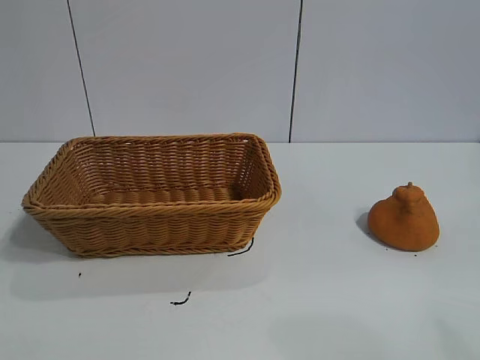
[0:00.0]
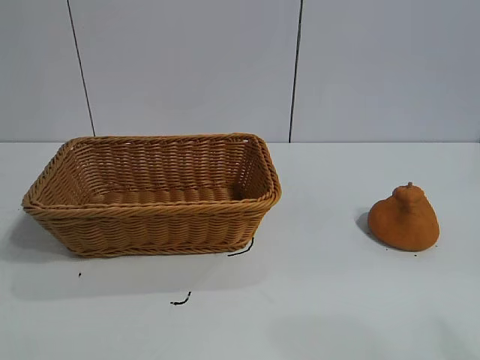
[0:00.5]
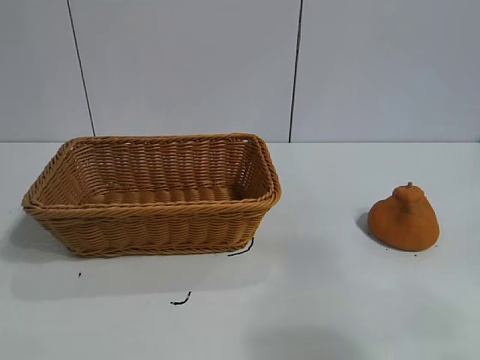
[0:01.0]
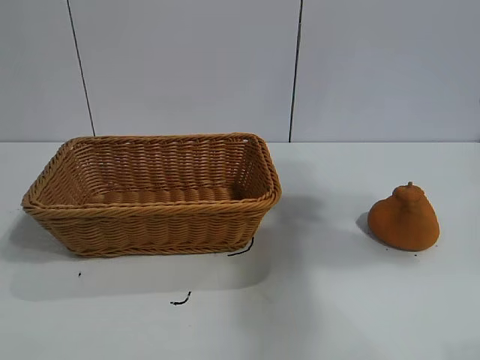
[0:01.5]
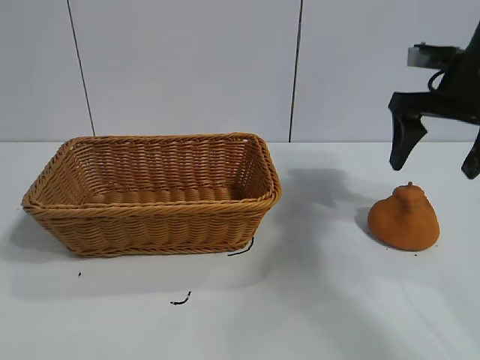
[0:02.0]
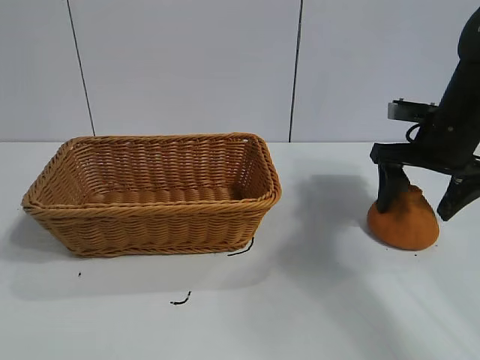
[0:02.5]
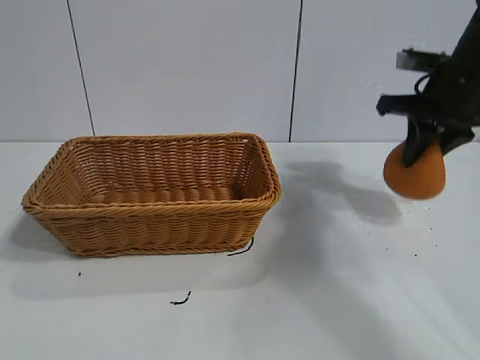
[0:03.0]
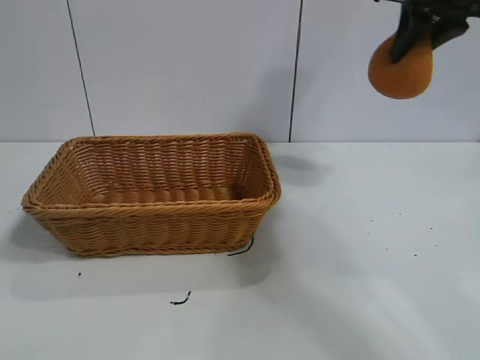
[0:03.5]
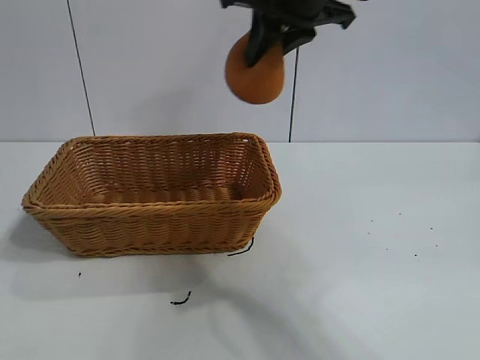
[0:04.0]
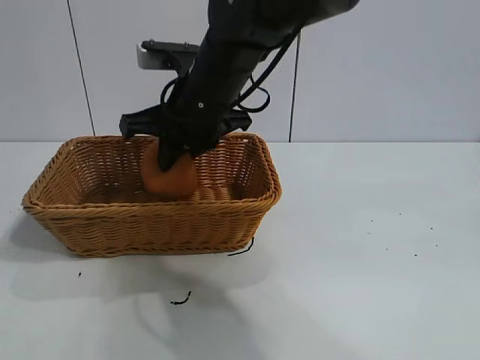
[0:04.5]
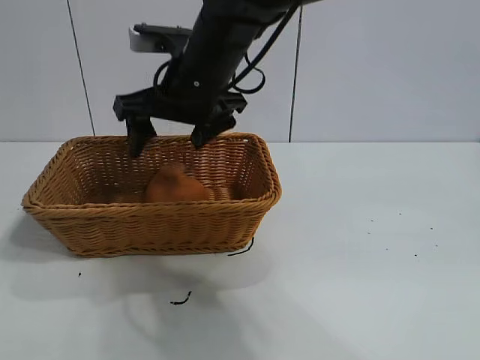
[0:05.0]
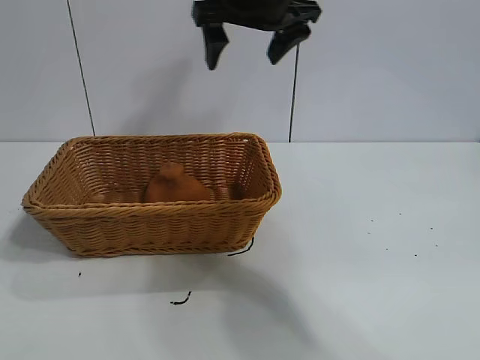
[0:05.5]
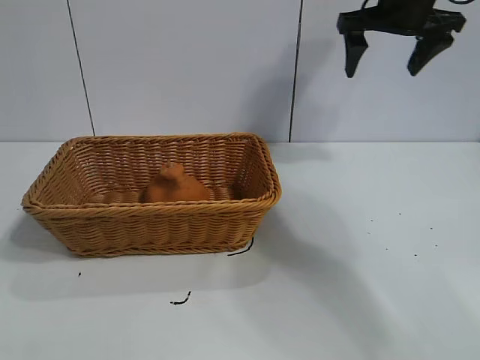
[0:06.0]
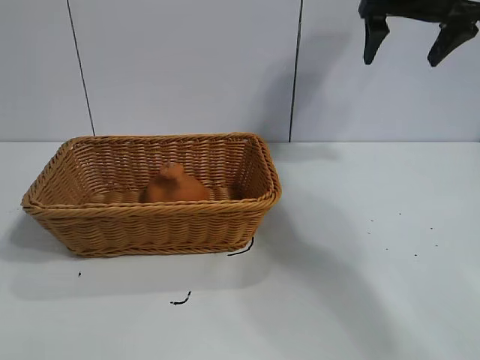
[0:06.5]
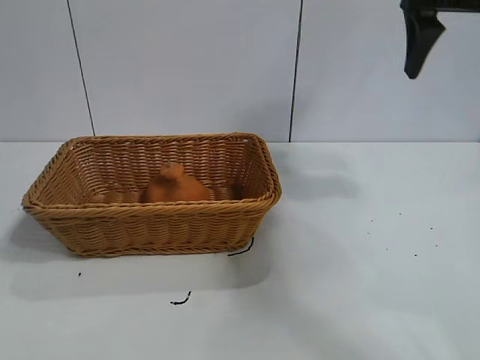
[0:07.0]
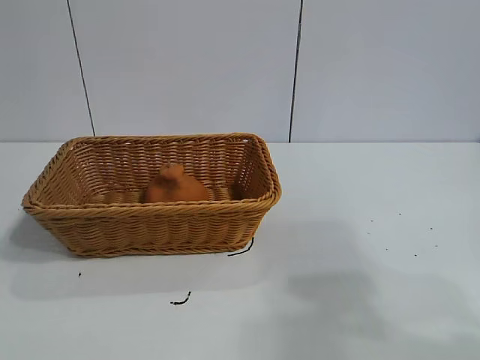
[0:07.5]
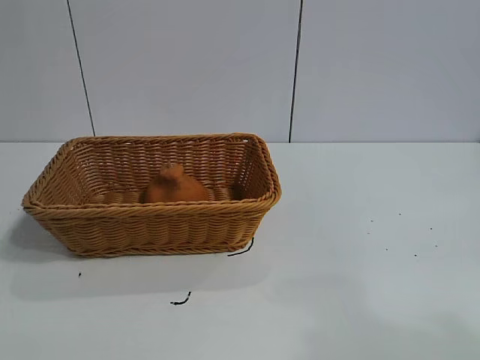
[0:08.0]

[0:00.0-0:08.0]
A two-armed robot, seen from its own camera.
Task of the whole recording: pick up the orange and put it into the basket.
Step, 0:01.0 to 0:02.5: Grasp the orange with right gripper.
Step, 0:03.0 to 0:04.5: Place the orange in the basket with right gripper.

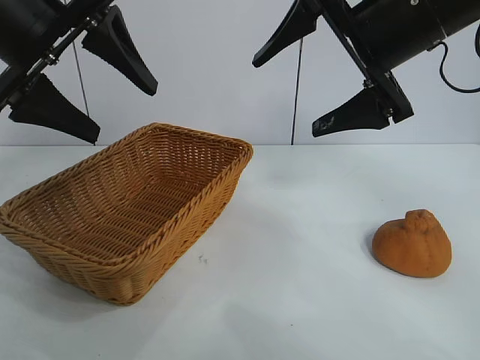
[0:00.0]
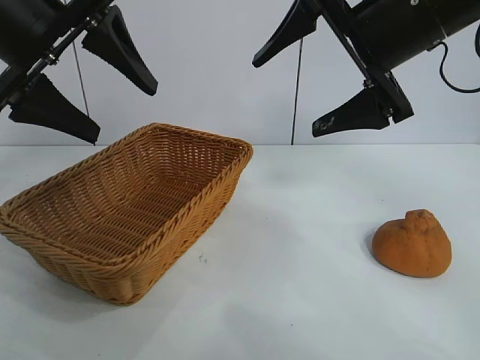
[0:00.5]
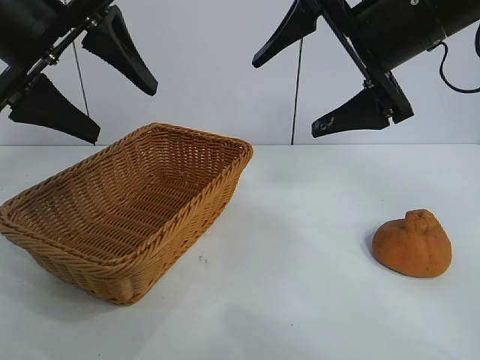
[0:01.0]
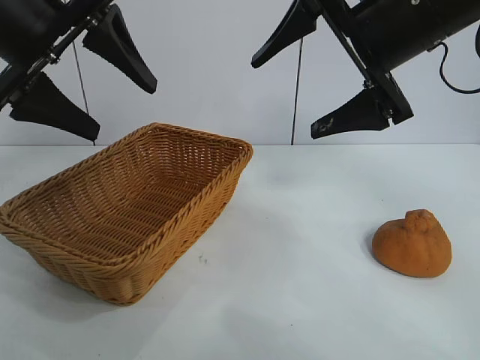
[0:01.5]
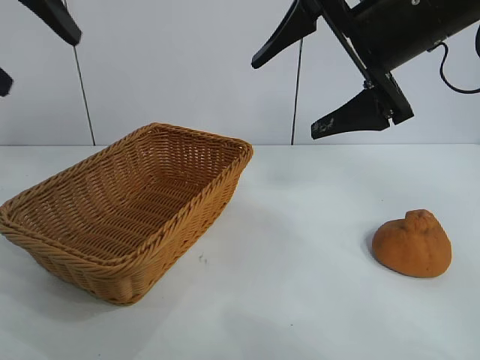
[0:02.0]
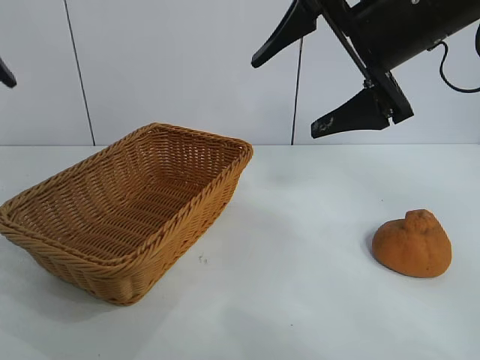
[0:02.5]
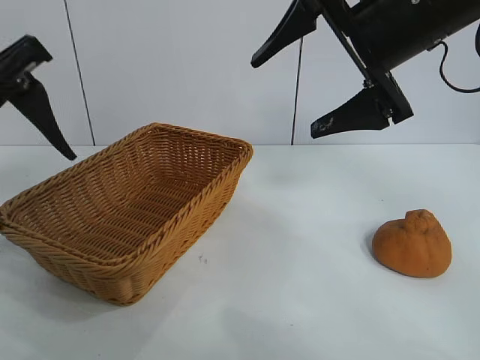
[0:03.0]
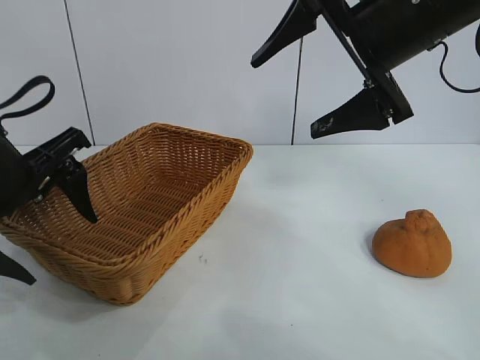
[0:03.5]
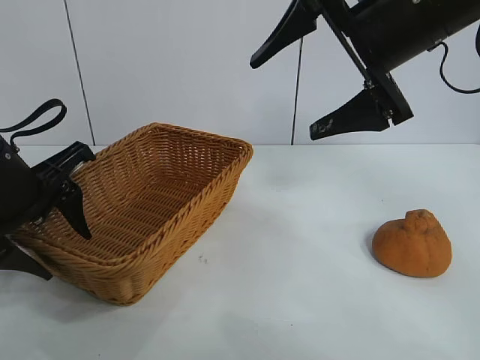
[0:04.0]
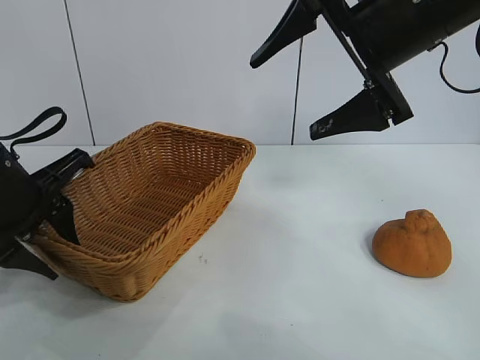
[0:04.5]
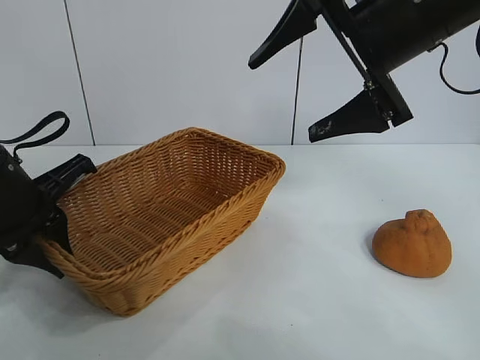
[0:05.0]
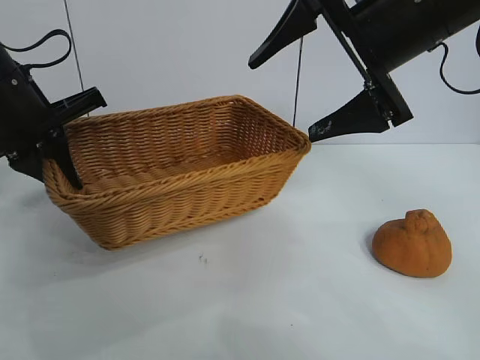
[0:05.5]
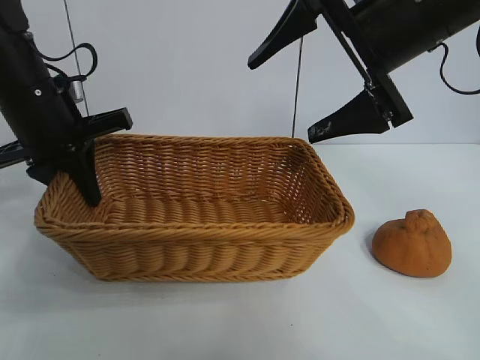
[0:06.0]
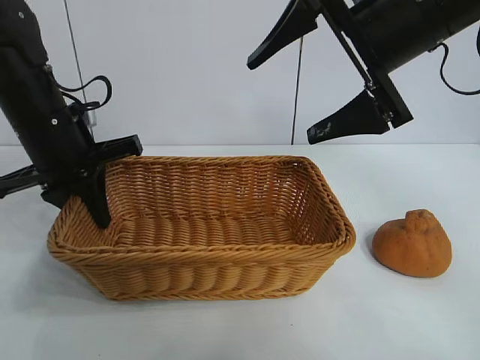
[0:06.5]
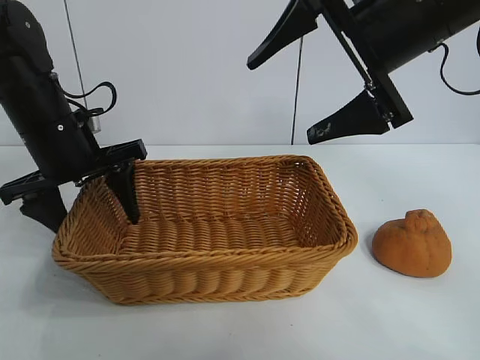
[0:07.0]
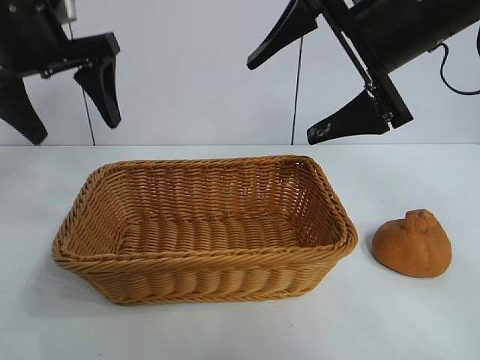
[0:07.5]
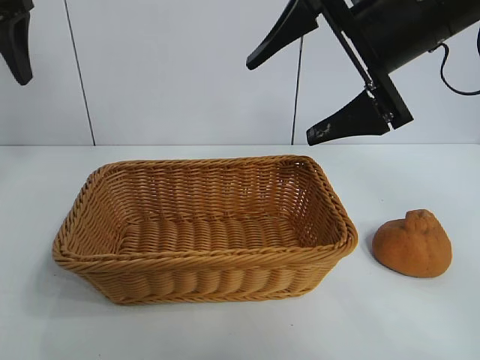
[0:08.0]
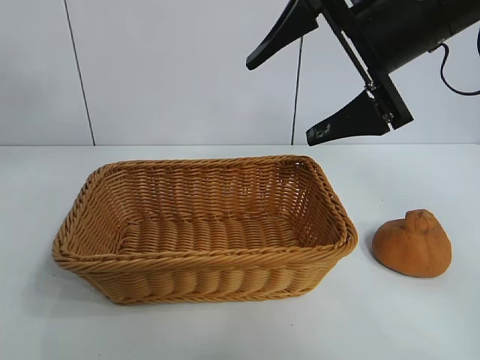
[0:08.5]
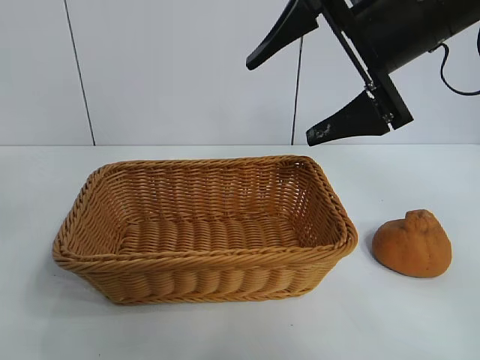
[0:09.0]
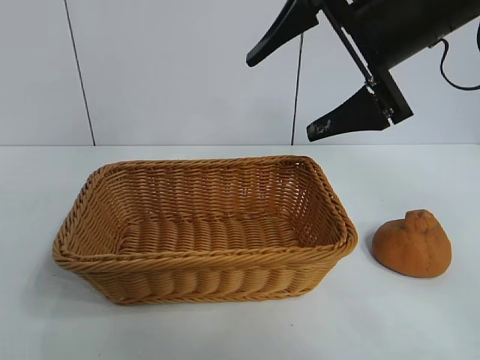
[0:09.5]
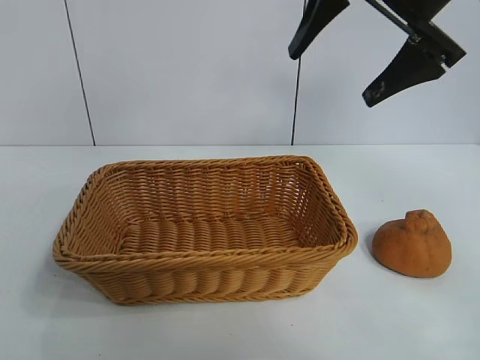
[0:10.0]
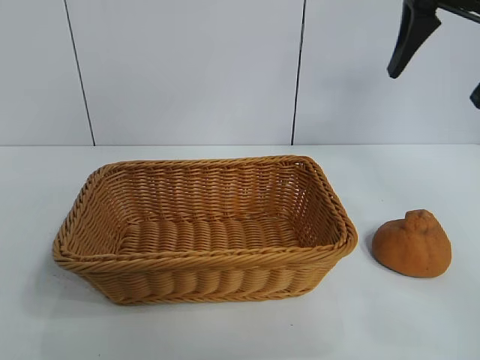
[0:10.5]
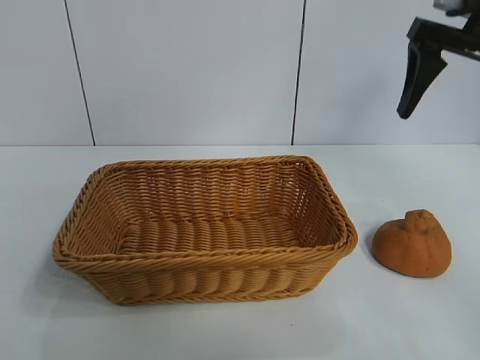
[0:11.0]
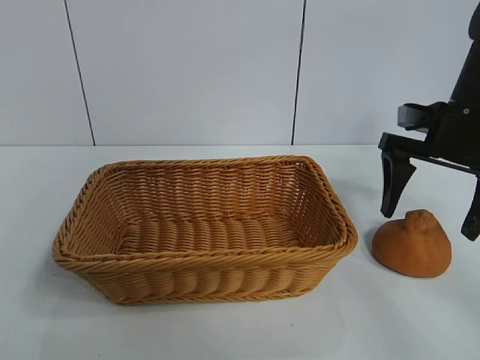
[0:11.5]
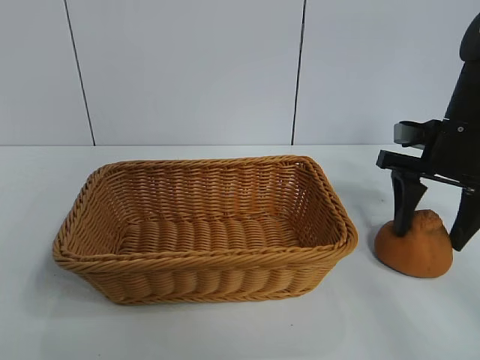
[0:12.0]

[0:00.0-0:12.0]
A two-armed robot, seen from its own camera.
Task of the whole recording: pick up the orange and put it into the basket.
Step, 0:01.0 to 0:04.5: Grasp the basket with left gripper.
Step, 0:05.0 to 0:07.0: Place the basket in the center of view with left gripper.

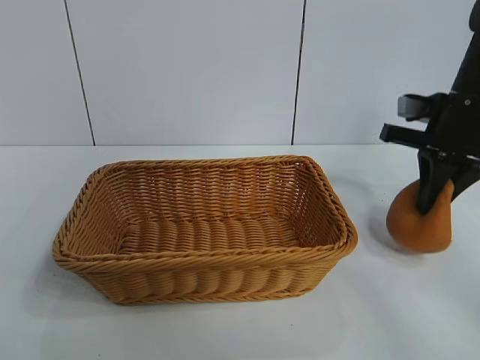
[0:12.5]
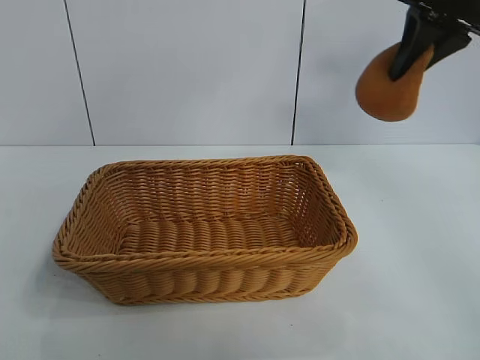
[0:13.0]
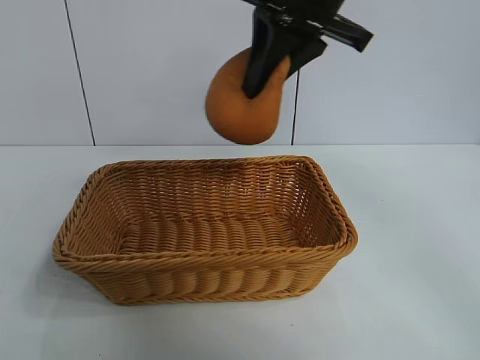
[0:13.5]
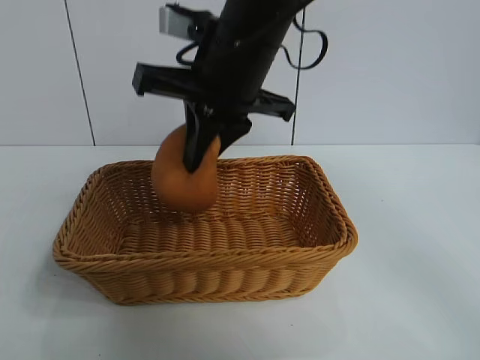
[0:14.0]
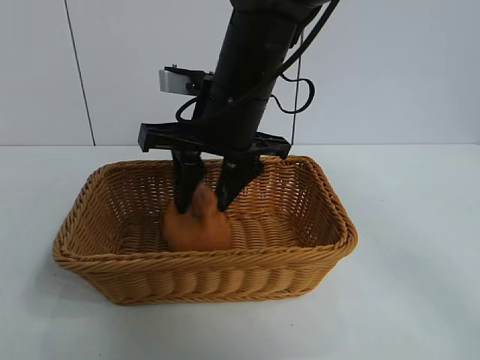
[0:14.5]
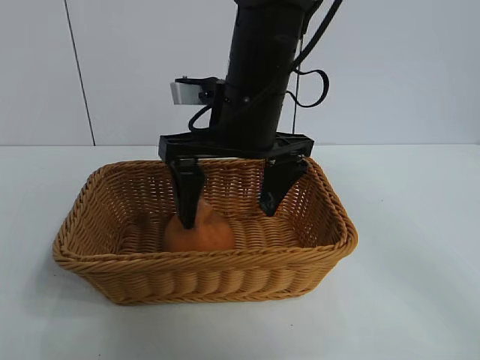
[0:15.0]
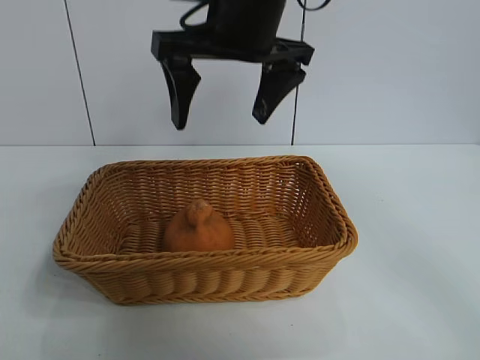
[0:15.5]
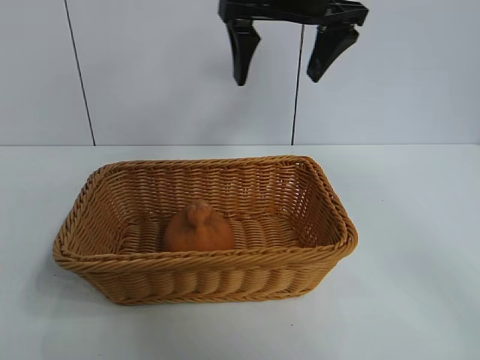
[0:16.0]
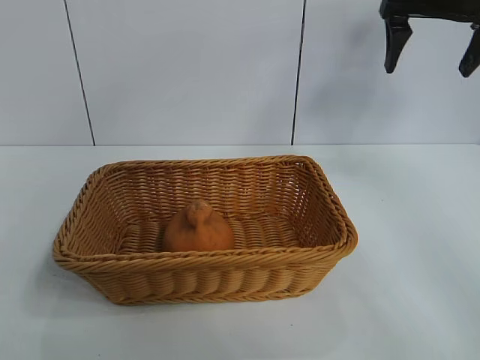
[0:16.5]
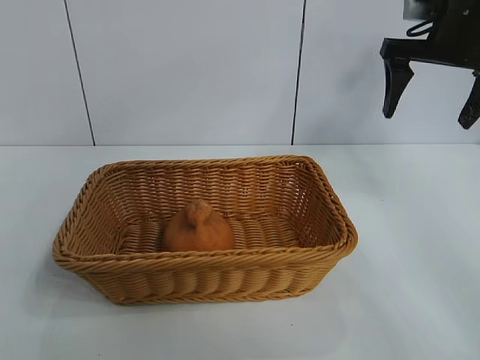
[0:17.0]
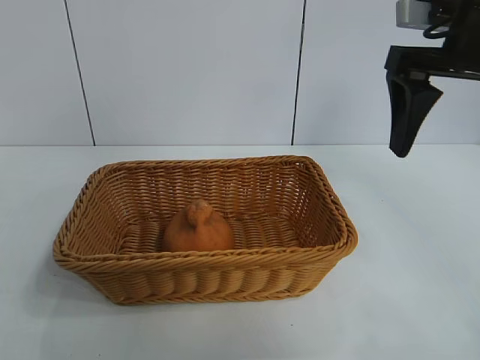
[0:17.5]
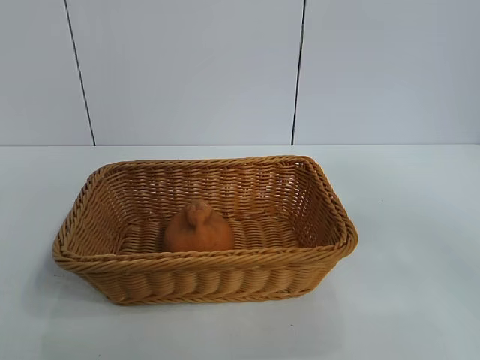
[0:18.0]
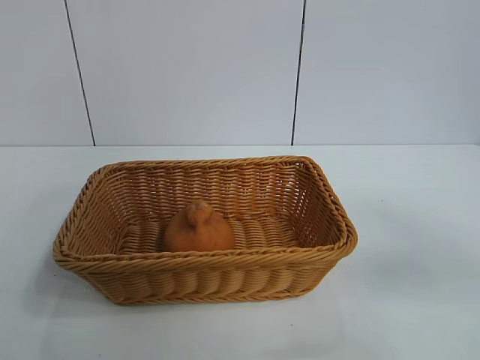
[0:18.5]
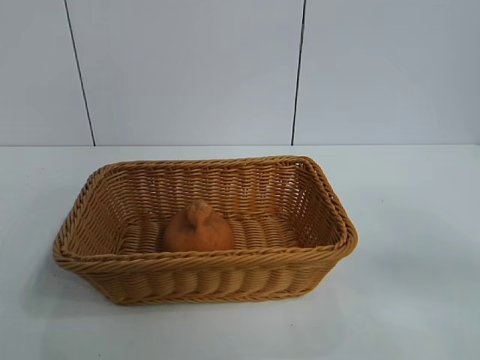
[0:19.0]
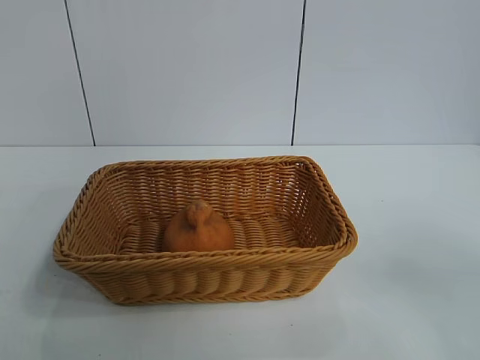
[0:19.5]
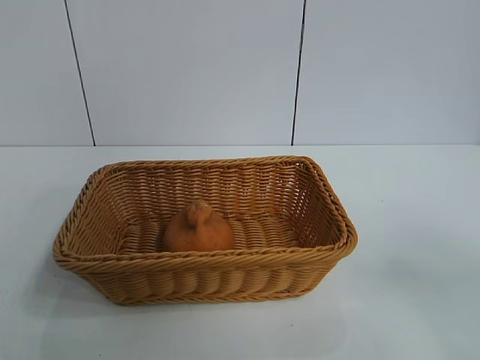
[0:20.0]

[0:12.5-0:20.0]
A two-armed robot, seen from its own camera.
Task of the whole recording: pick up the orange and put it into the basket.
Step, 0:12.5 to 0:15.0: Place the orange in the basket with right gripper.
